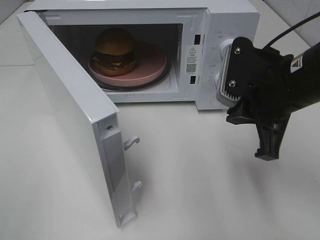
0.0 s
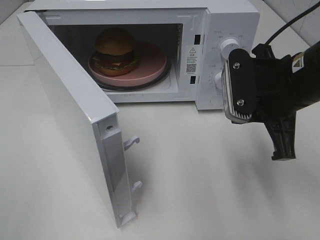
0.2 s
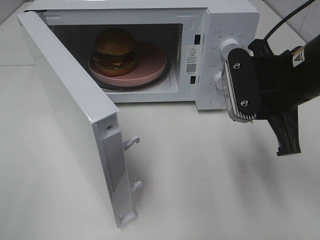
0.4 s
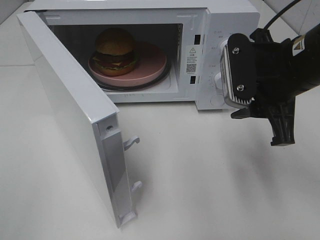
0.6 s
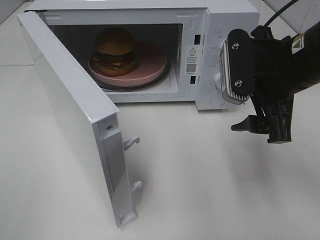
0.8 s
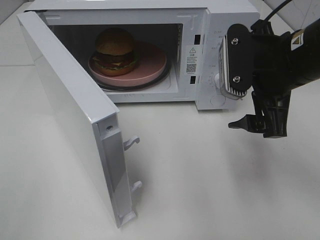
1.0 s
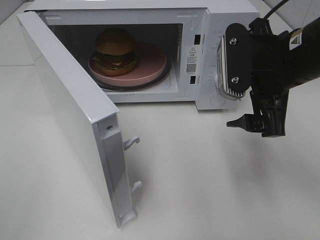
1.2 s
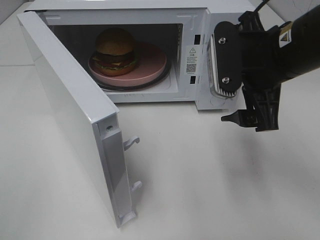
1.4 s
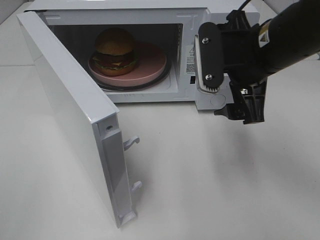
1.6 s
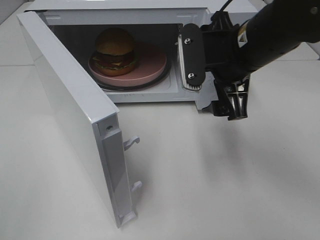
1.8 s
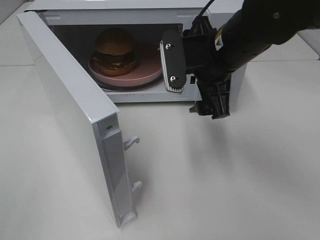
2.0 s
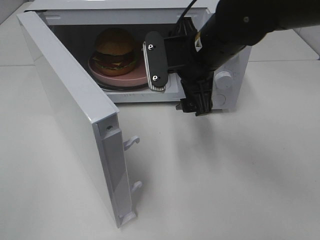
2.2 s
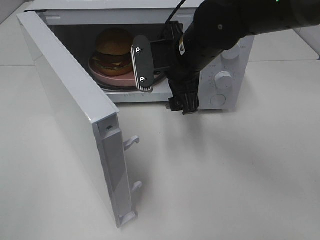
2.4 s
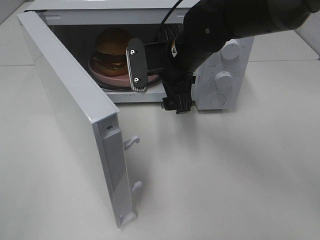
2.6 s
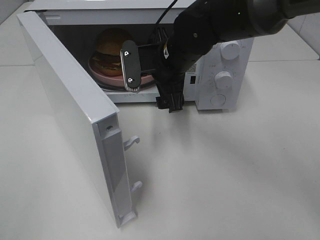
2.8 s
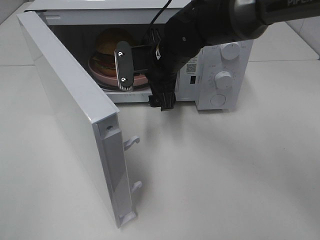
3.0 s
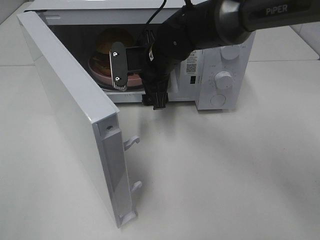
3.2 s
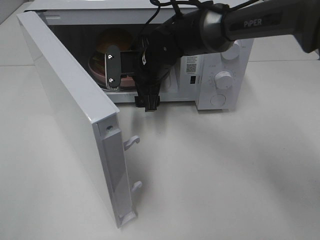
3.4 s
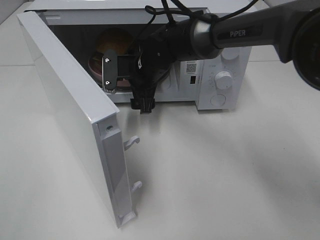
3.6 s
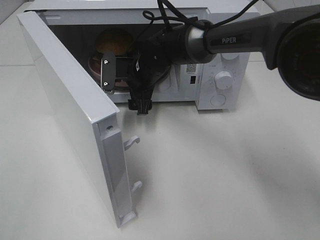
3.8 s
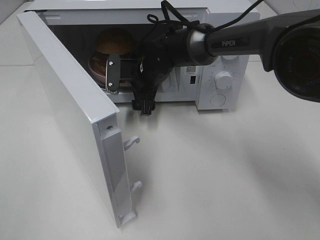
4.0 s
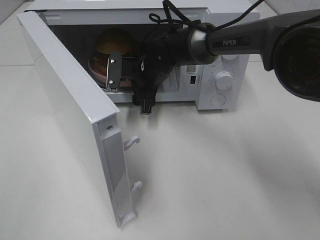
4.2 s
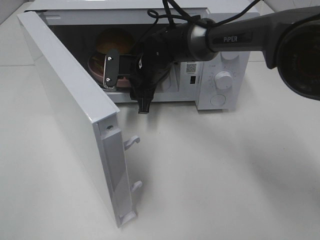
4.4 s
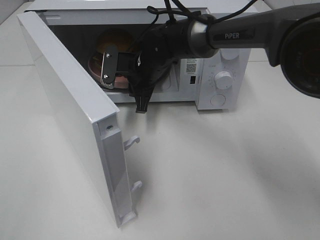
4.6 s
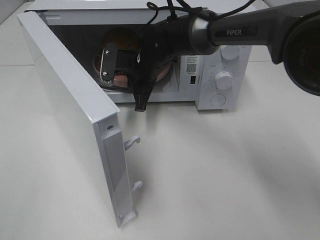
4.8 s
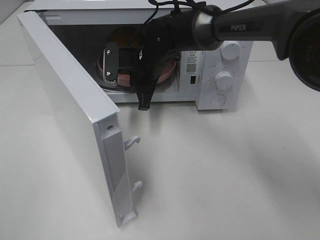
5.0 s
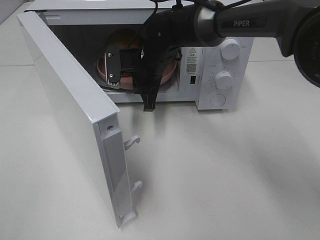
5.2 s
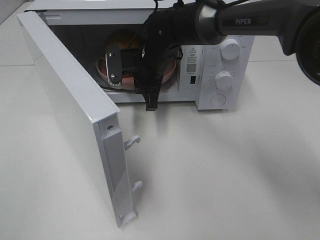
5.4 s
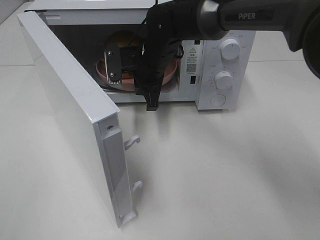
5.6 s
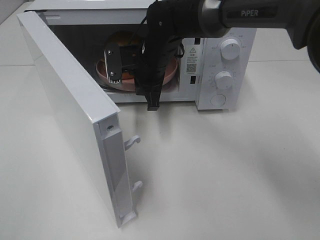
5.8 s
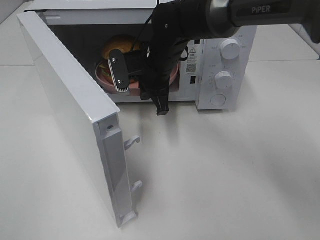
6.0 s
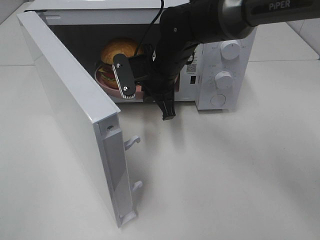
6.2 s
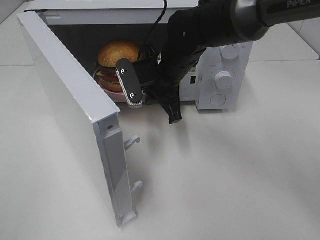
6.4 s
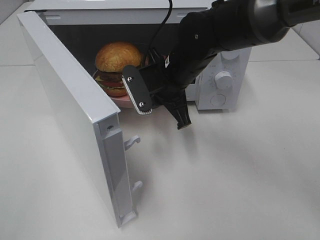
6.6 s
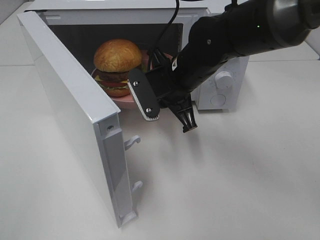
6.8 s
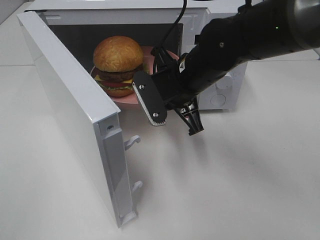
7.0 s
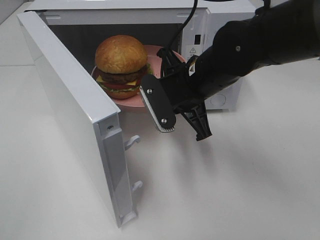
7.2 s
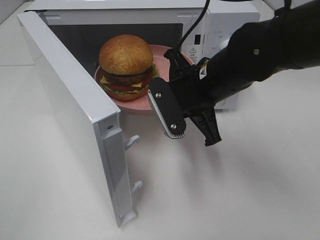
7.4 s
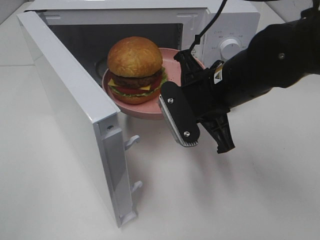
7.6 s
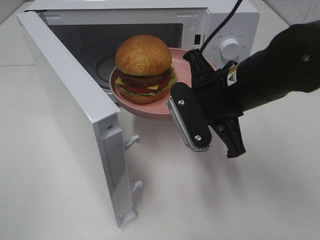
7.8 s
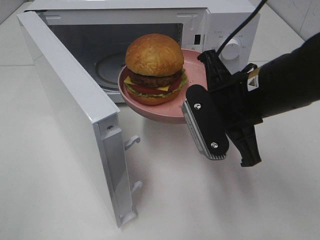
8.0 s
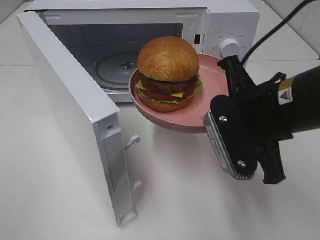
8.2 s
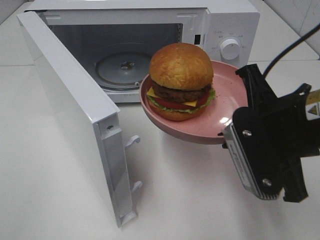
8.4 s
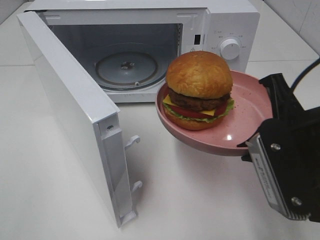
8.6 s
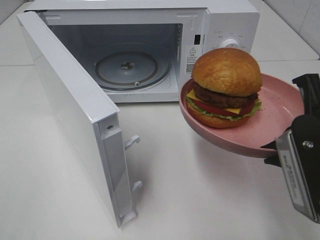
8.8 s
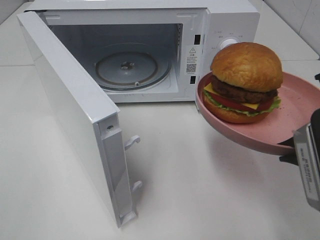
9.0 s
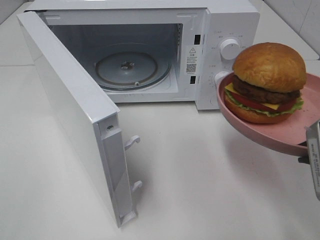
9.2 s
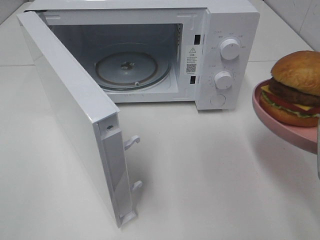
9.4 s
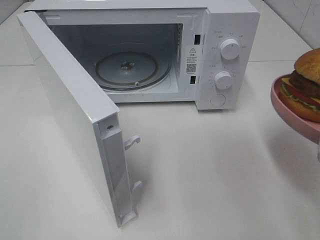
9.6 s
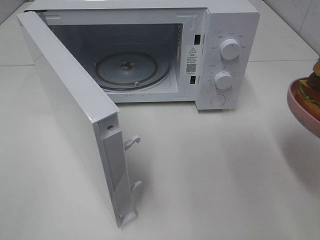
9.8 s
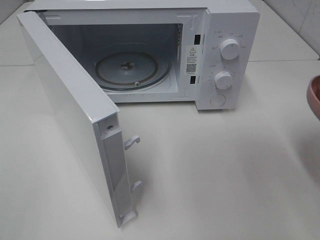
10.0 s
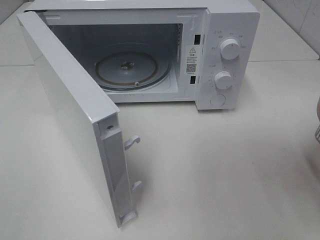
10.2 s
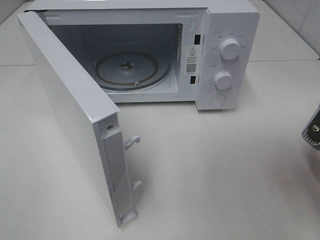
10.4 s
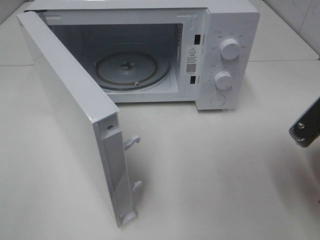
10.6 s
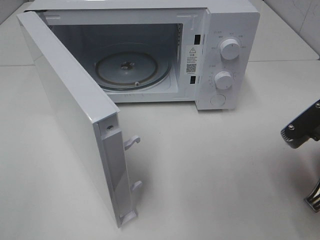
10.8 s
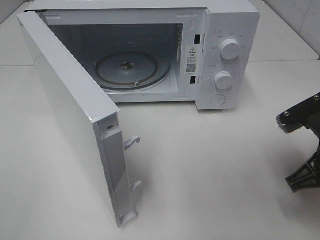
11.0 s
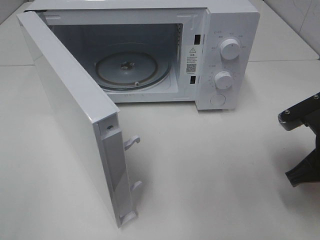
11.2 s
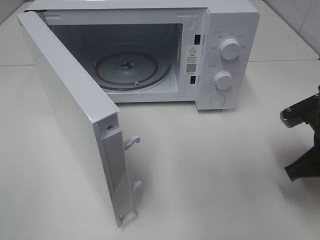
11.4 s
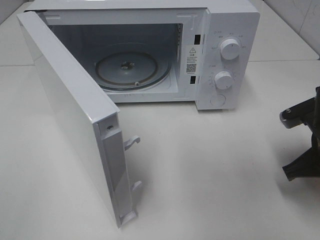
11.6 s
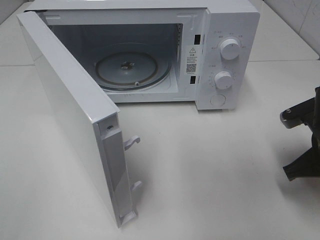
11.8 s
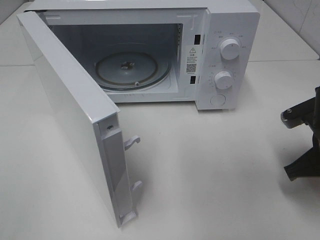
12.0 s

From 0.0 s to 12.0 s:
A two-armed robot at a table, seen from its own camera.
Task of the whole recording: Heat the burger.
Step, from 0.0 s to 4.6 s: Right hand: grab the plate with the hamburger.
From 0.0 s to 1.6 s: The right gripper moves roughly 5 cm, and opens its fingers.
From 1.6 s to 3.0 s: The right gripper shifts about 15 cm to the left, forward and downward.
From 3.0 s to 4.4 s: The right gripper travels downward and forward by roughly 10 cm, and closes its fingers.
From 4.4 s to 6.0 s: The right gripper changes place by roughly 5 cm, and closes up.
From 6.0 s to 7.6 s: The right gripper moves backward and to the right, roughly 15 cm.
From 7.6 s to 9.0 s: The right gripper is displaced backward and to the right by roughly 20 cm.
From 10.4 s to 12.0 s: The right gripper travels downward and forward by about 10 cm.

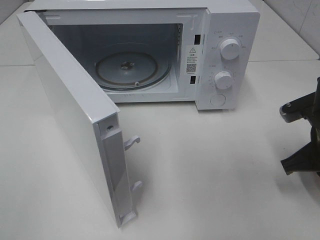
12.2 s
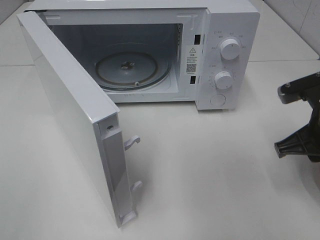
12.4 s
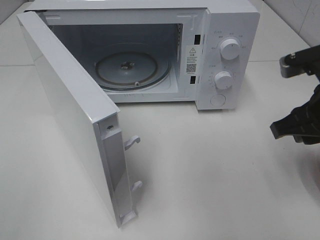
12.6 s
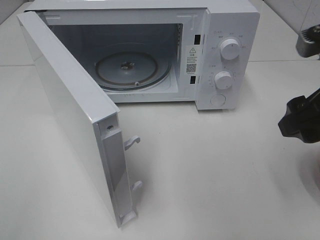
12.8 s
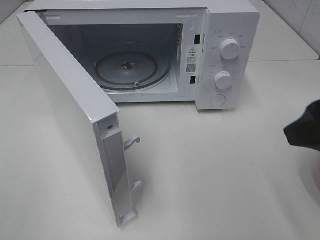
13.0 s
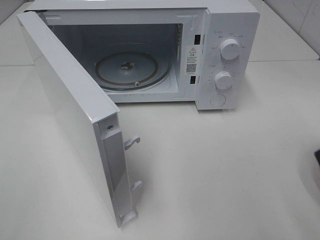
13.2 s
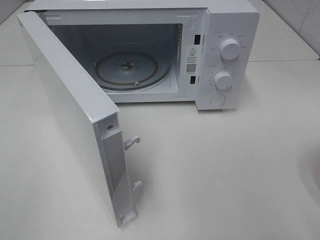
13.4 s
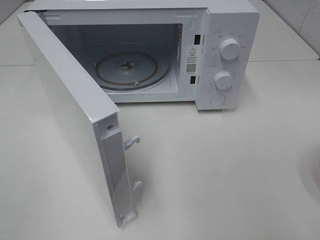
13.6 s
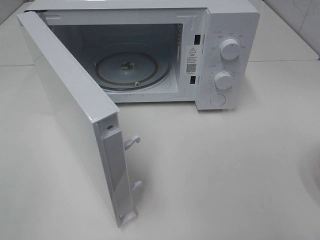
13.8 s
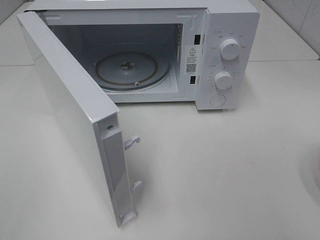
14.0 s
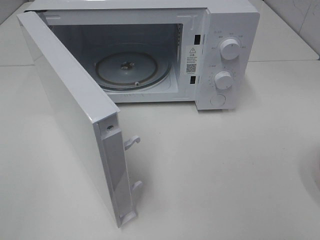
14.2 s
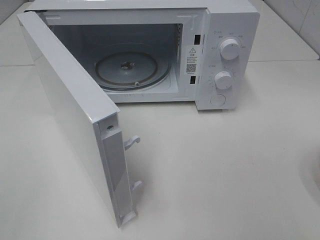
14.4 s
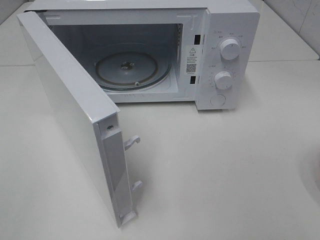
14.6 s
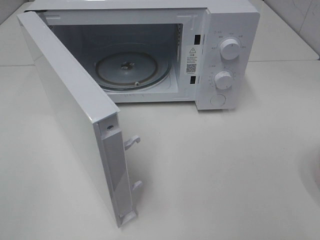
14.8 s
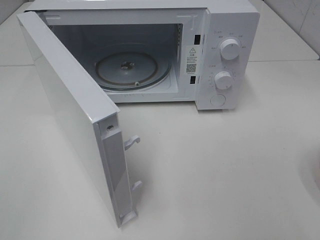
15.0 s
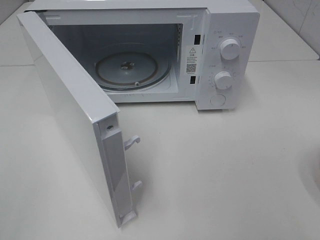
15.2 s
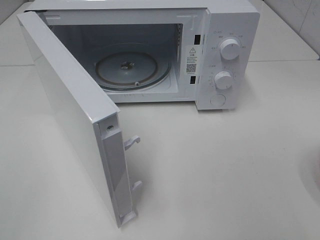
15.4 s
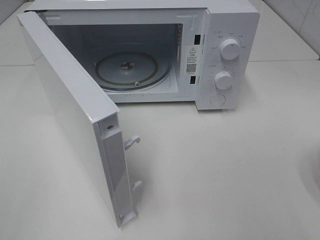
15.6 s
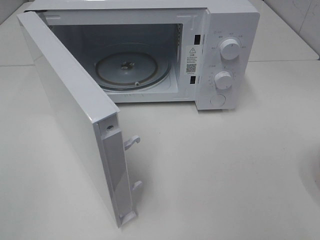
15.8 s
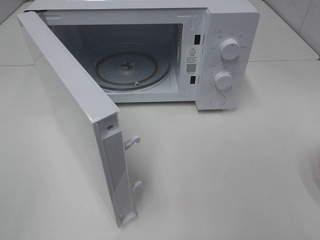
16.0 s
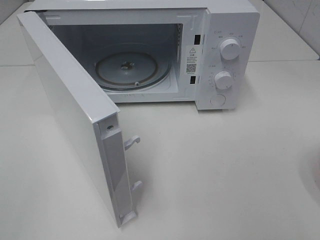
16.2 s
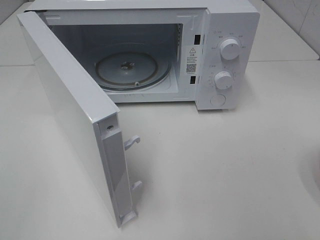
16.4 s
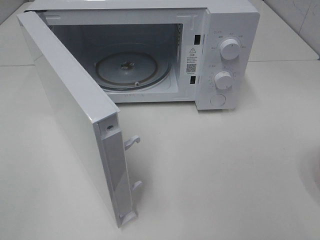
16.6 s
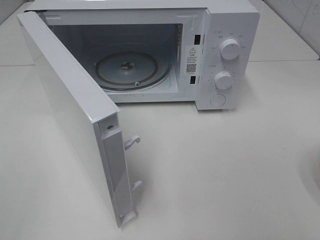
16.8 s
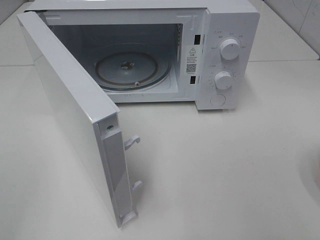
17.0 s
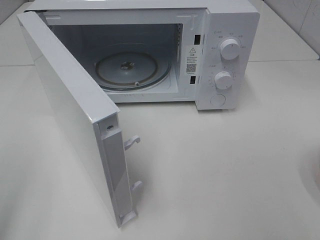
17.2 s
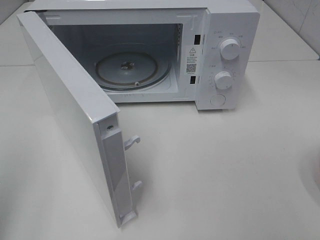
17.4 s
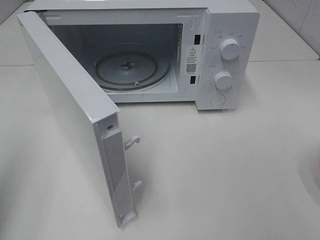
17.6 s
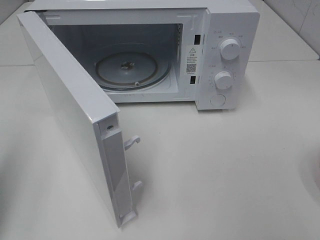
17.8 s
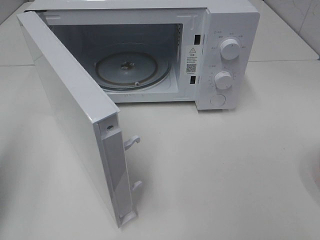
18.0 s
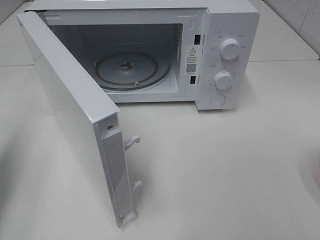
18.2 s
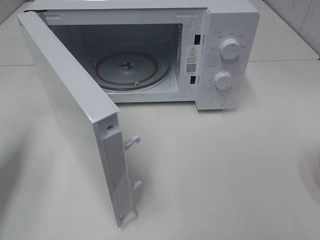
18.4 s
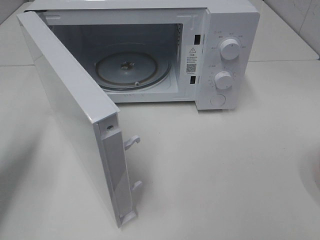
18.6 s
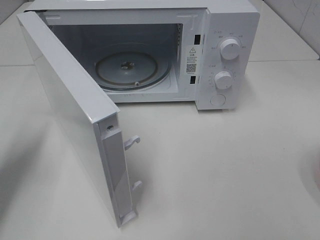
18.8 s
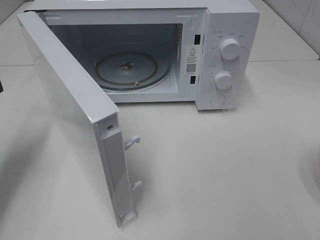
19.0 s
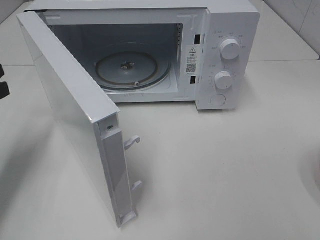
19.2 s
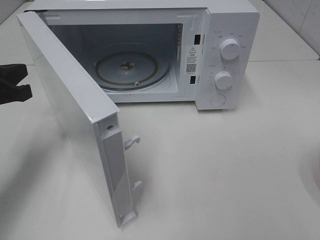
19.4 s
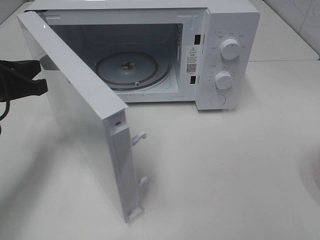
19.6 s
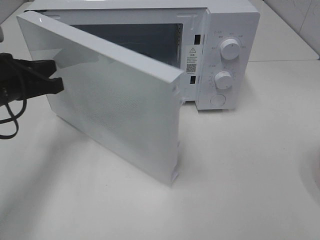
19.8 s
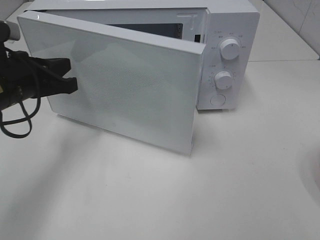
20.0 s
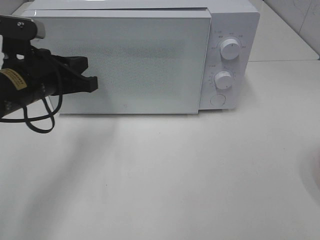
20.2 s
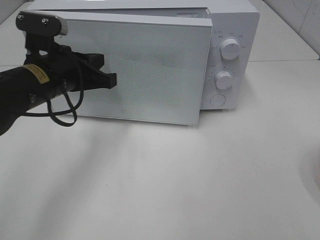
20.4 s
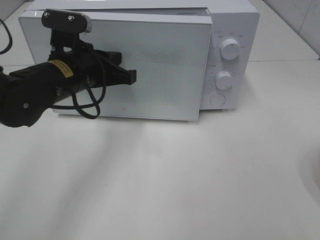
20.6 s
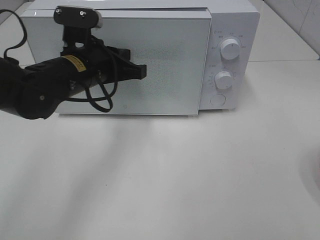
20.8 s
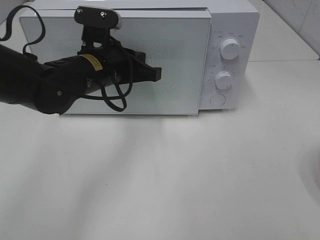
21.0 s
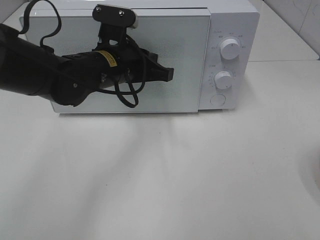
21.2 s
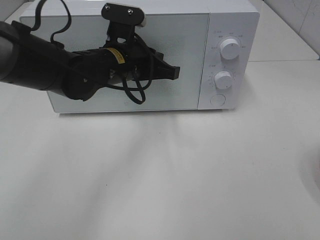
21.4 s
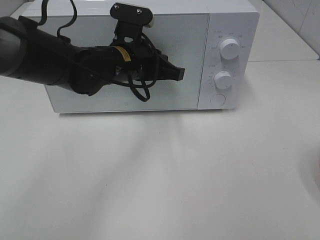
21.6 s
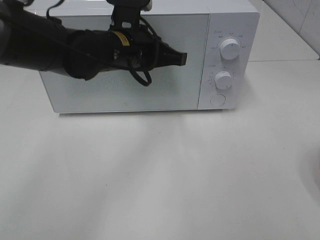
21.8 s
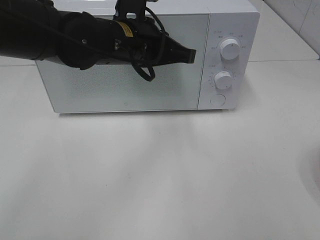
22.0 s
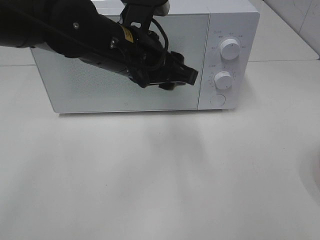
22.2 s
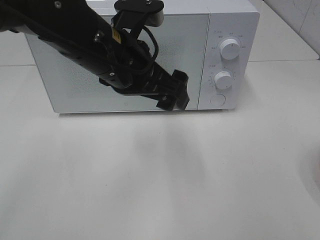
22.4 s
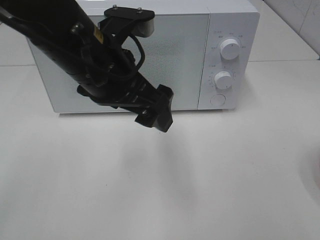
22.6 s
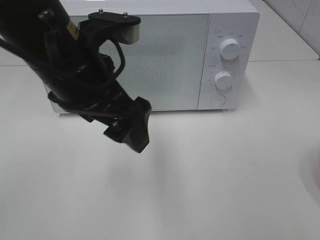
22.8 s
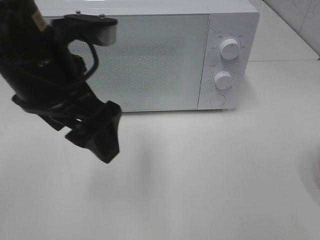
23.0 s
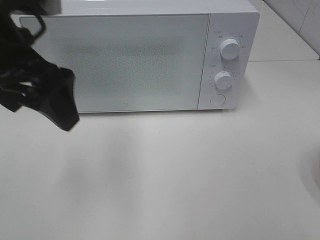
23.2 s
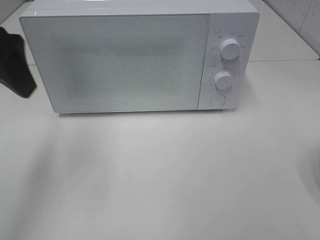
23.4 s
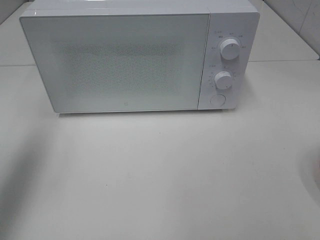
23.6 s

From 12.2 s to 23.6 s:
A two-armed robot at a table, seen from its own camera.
Task of the whole recording: Heat the burger.
Step, from 12.2 s to 21.6 s: Left hand: close the microwave door.
From 12.2 s to 13.6 s: The right gripper travels backward and upward by roughly 25 cm, and opens.
From 15.0 s to 16.4 s: Both grippers stay put.
From 16.4 s to 17.8 s: The left gripper moves forward, approximately 15 cm, and closes up.
From 17.8 s to 19.4 s: The left gripper heads forward, downward and to the right, covering roughly 15 cm.
From 19.4 s to 20.8 s: The left gripper heads to the right, covering some 15 cm.
From 20.8 s to 22.2 s: The left gripper moves to the right and upward, approximately 10 cm, and opens its fingers.
From 22.2 s to 23.6 s: The left gripper goes roughly 25 cm to the left, and opens up.
